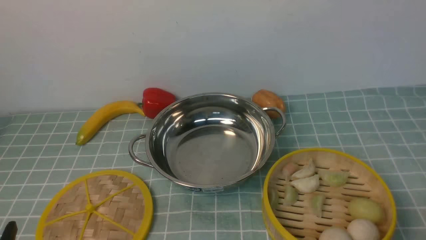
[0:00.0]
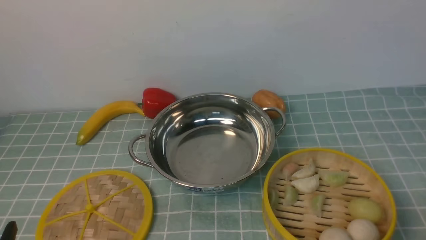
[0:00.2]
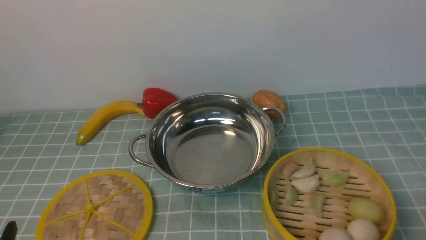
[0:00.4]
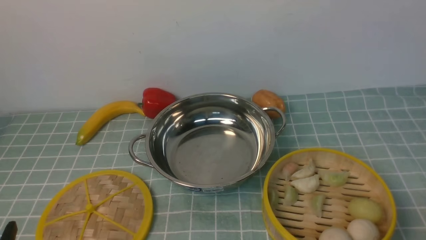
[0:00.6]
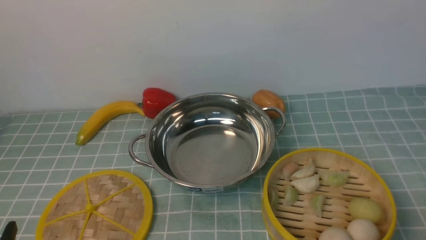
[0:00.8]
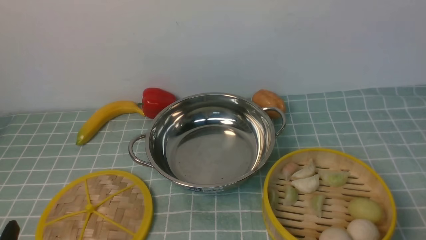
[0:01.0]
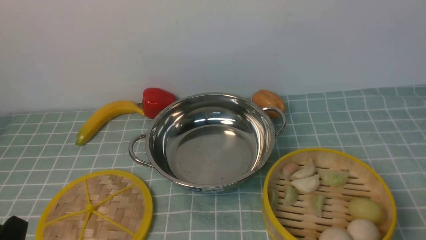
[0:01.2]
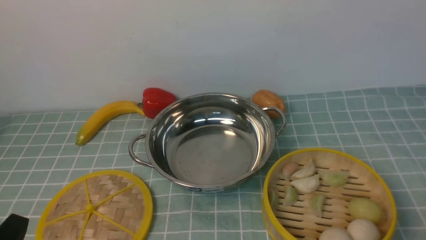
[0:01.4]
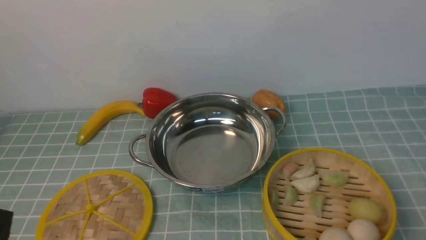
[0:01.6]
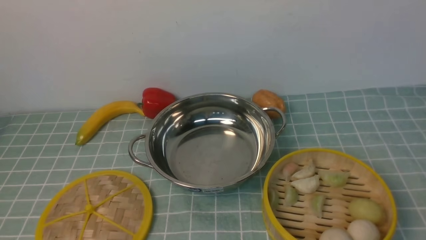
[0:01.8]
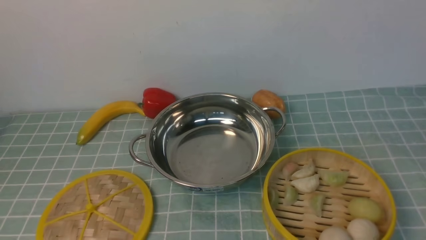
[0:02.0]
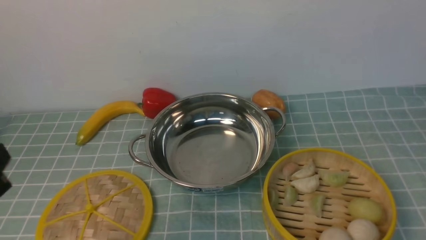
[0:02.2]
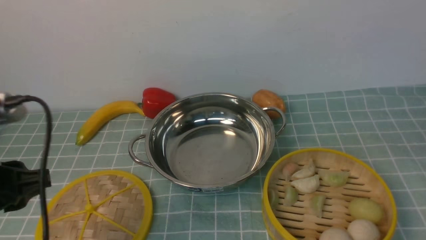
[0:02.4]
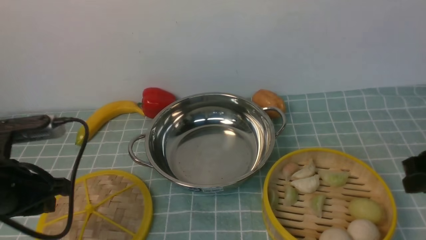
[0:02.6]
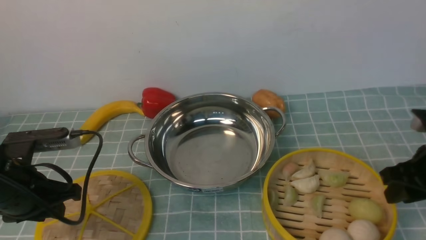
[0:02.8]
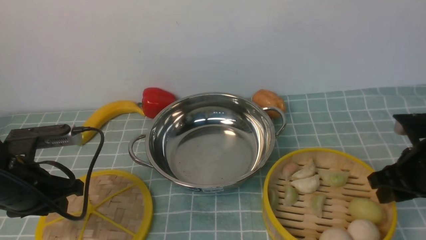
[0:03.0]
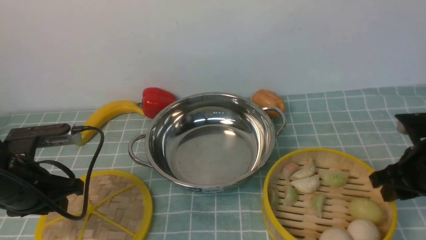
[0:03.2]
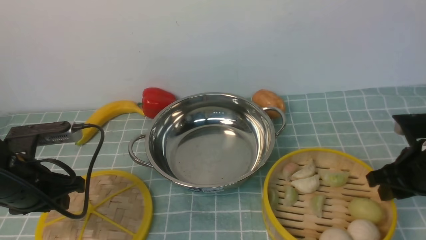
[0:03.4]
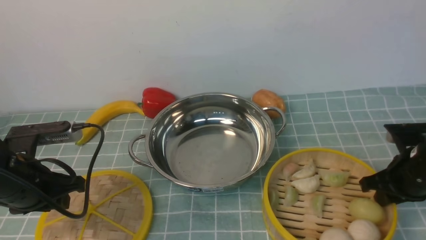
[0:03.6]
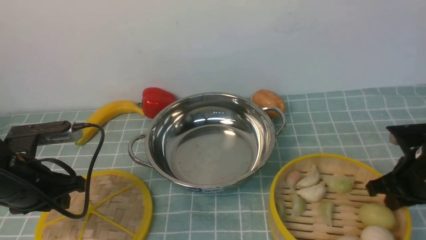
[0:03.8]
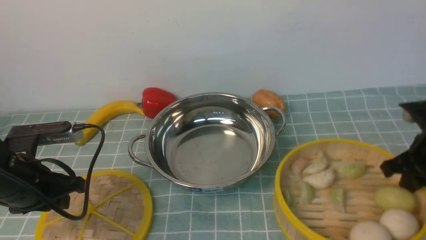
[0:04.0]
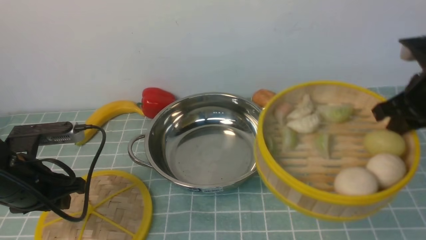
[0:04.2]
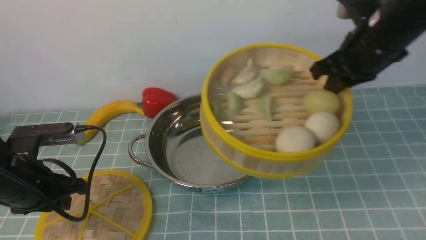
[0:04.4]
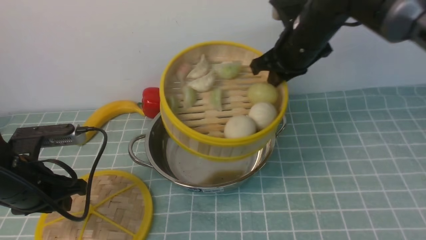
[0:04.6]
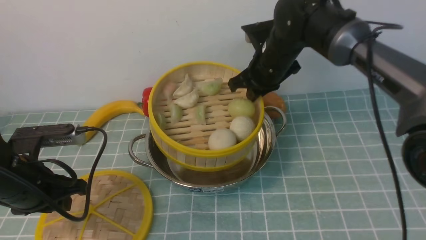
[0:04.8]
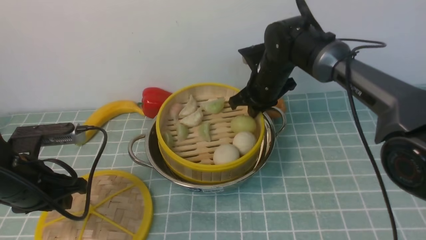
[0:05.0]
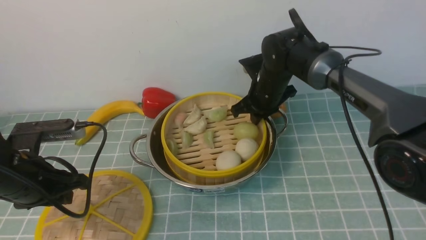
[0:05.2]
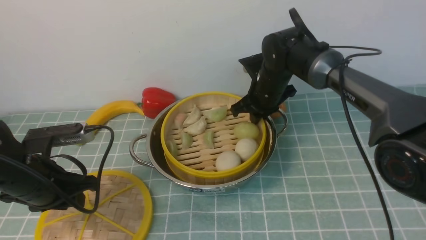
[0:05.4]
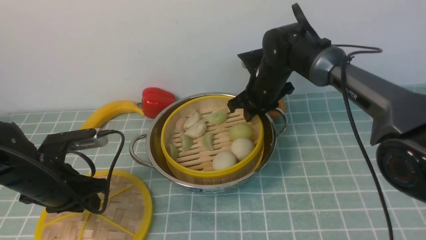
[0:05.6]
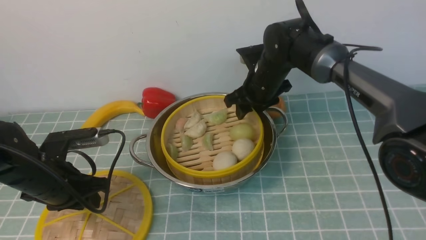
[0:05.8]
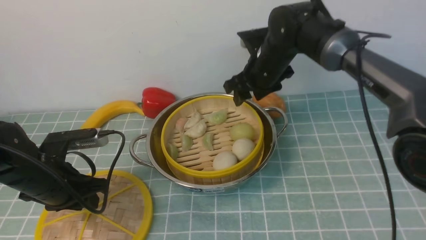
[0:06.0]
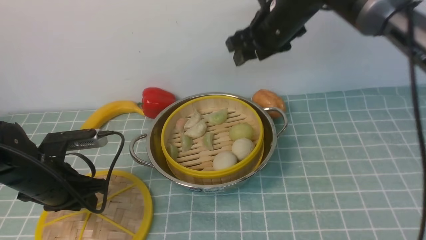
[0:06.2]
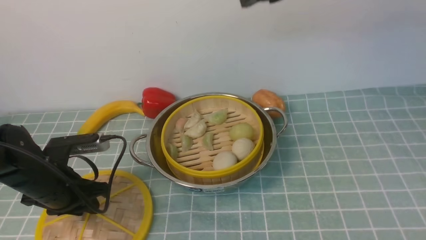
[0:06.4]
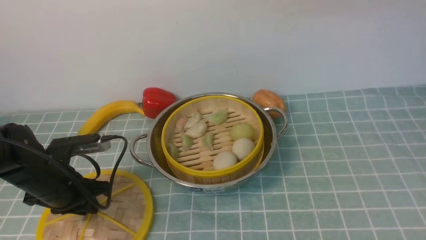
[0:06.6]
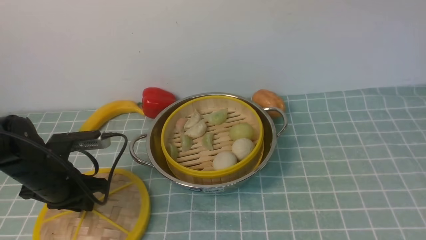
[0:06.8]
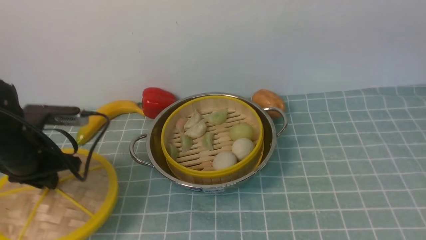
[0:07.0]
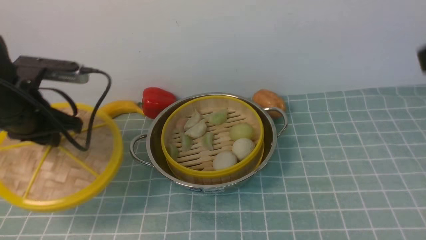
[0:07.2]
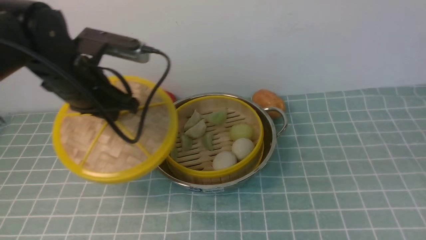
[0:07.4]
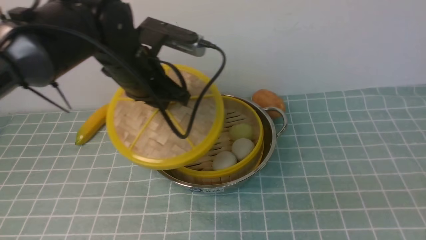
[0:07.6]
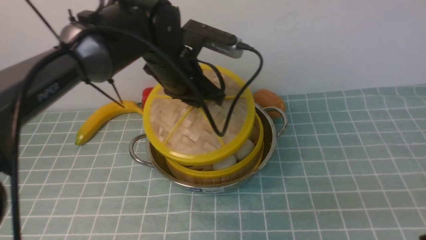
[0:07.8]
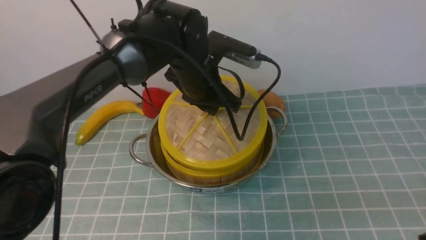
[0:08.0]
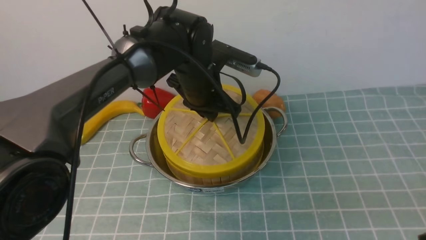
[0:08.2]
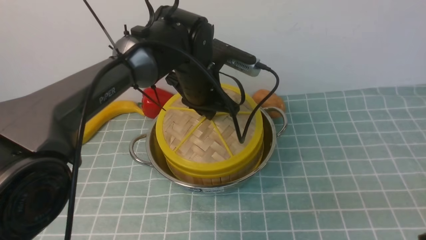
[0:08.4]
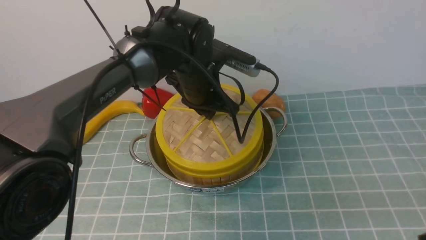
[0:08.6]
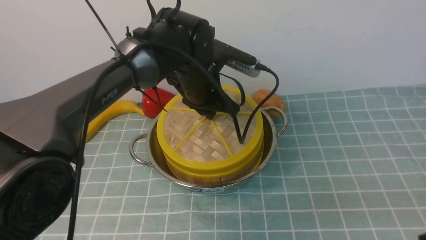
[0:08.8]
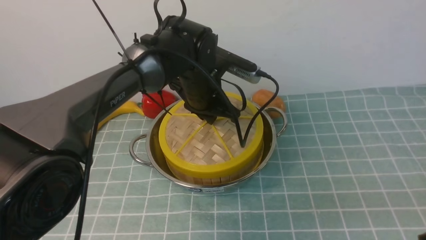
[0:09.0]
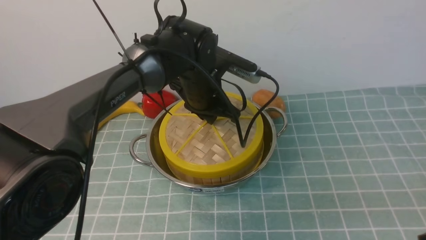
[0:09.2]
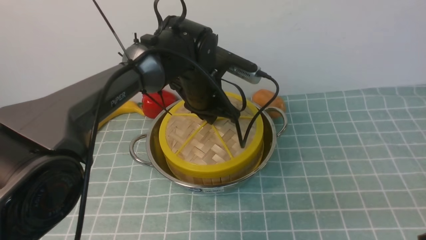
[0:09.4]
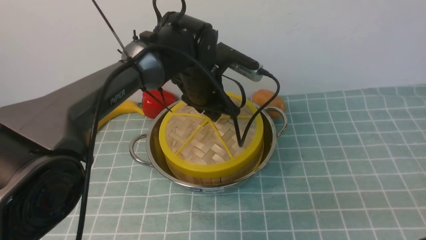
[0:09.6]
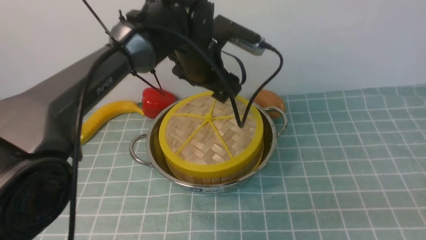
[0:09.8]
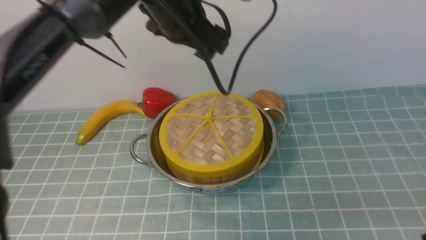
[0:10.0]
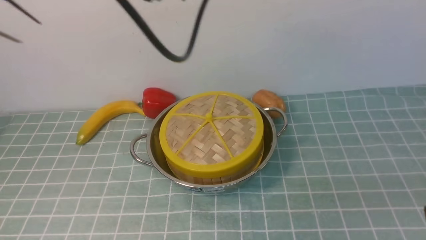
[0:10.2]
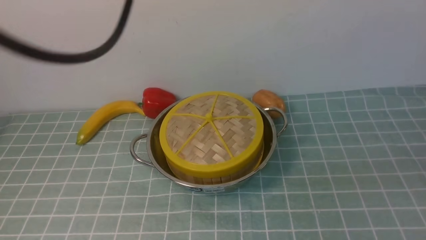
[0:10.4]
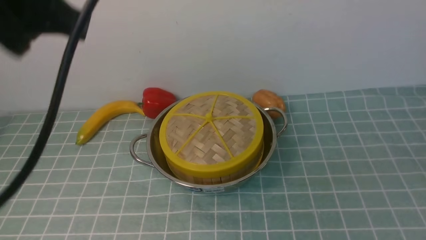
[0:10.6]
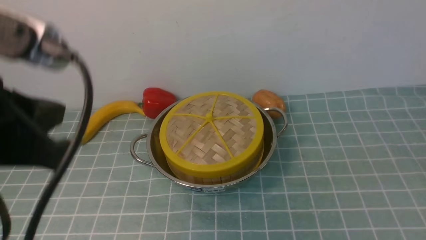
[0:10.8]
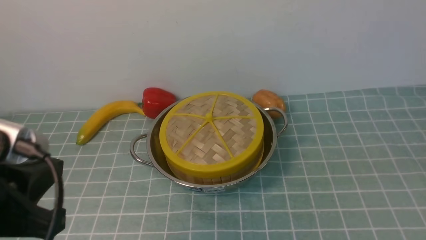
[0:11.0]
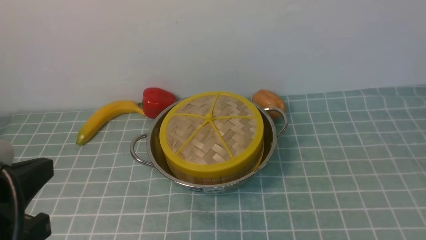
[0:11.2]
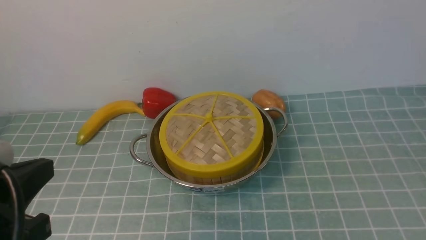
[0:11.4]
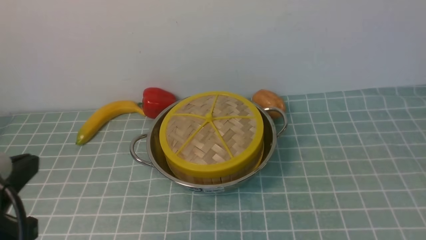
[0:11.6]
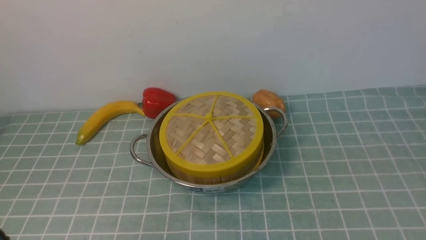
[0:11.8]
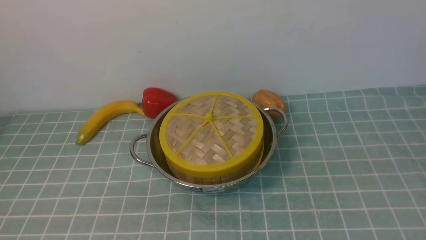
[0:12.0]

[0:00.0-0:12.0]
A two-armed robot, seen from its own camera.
Task of the whole recording: place the steamer in the pot on the blue tablecloth, and put the lid on the steamer.
Step, 0:00.0 to 0:04.0: use the right arm to lift the steamer closest to it.
Step, 0:04.4 to 0:05.8: use the right arm to put the steamer into the iron steamer pot in the middle.
Step, 0:06.0 to 0:07.2: use the left arm to lift the lid of the steamer.
Step, 0:07.4 to 0:09.8: use the left arm to place the steamer lid on the steamer.
0:01.6 to 0:03.0: Both grippers travel together forward, approximately 20 cm.
0:03.0 to 0:04.4: The right gripper goes roughly 15 cm upward, forward and to the left, and closes.
0:04.4 to 0:06.0: The left gripper ends up about 5 cm from where it was. Meanwhile the right gripper shifts roughly 20 cm to the left, forward and downward, and opens.
0:06.0 to 0:07.6: The left gripper moves upward, to the right and forward, about 20 cm. Meanwhile the right gripper moves backward and to the right, roughly 40 cm, and closes up.
0:07.6 to 0:09.0: The right gripper goes about 5 cm downward, and closes its fingers. The left gripper heads to the right, downward and forward, covering about 15 cm.
0:09.0 to 0:10.4: The left gripper travels upward and backward by about 25 cm, and opens, then closes again.
0:10.4 to 0:12.0: The left gripper heads backward, downward and to the left, covering some 35 cm.
